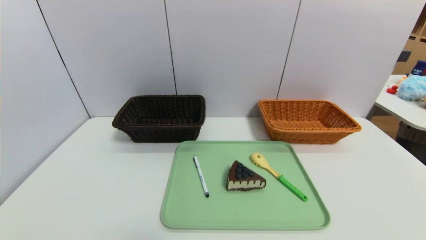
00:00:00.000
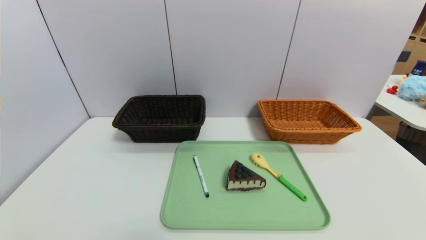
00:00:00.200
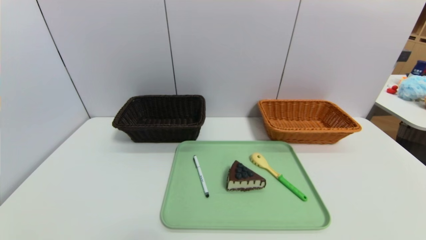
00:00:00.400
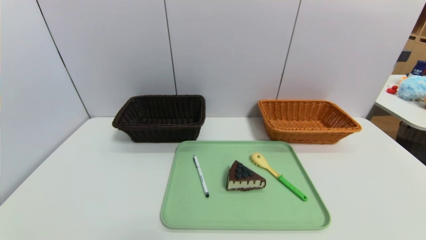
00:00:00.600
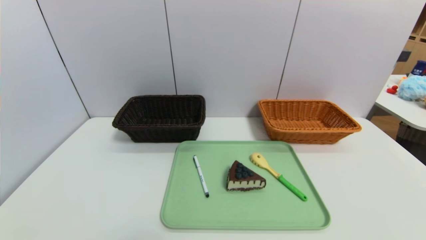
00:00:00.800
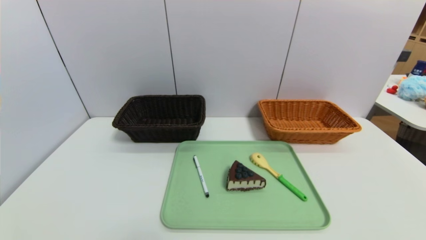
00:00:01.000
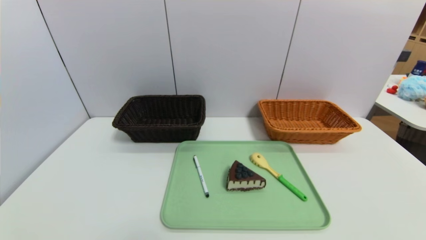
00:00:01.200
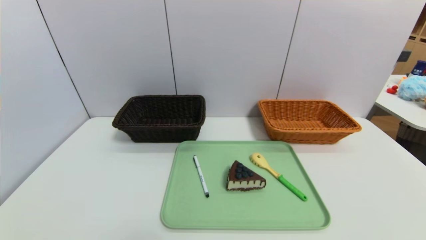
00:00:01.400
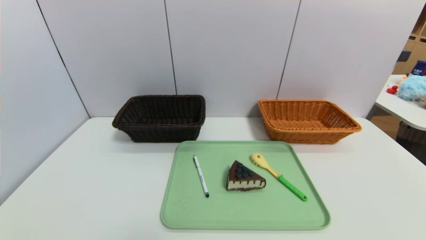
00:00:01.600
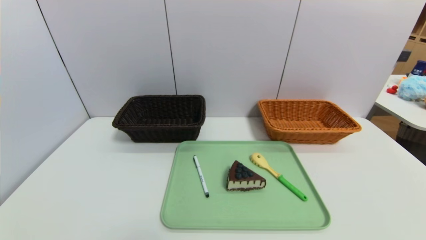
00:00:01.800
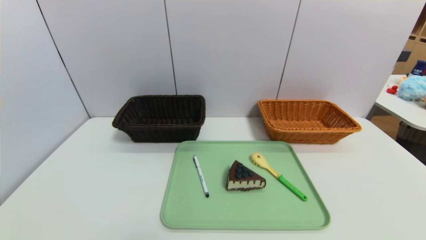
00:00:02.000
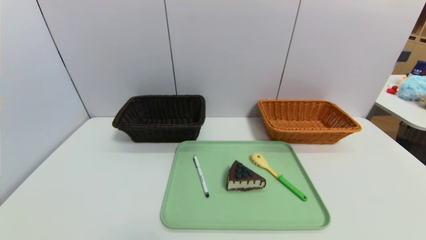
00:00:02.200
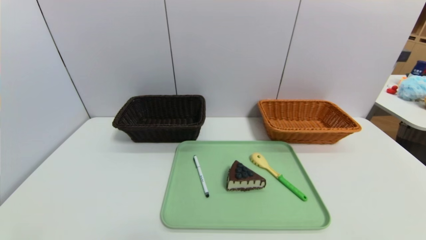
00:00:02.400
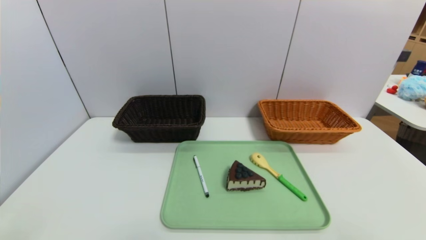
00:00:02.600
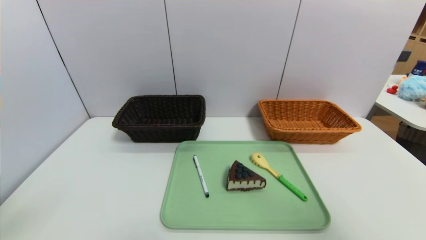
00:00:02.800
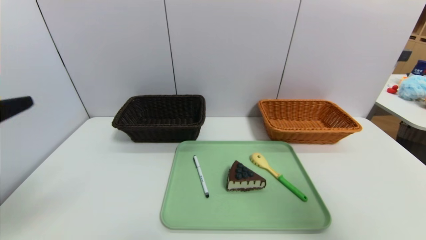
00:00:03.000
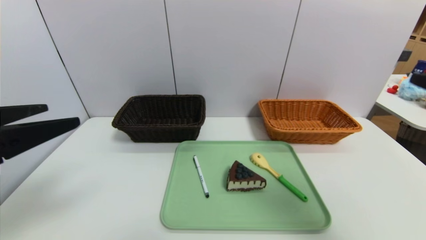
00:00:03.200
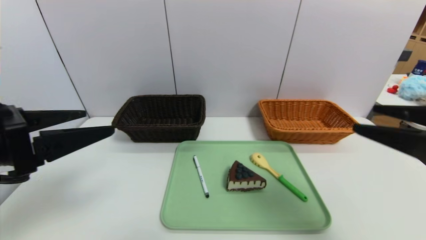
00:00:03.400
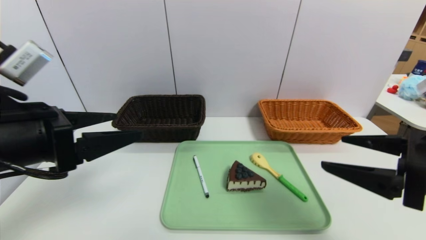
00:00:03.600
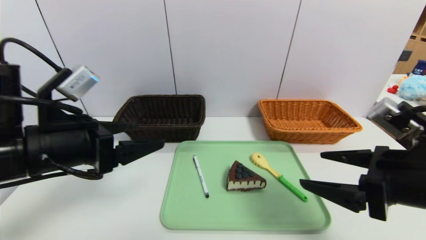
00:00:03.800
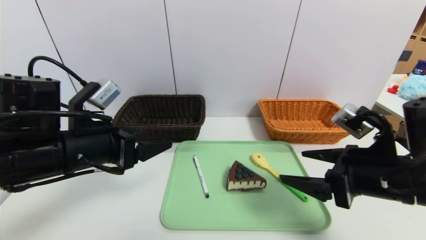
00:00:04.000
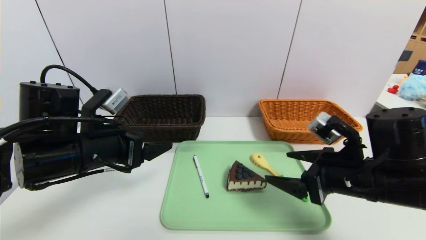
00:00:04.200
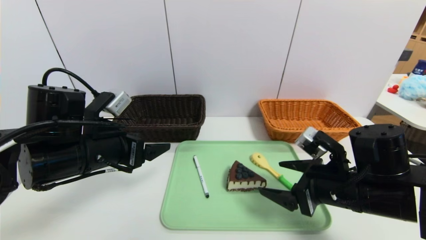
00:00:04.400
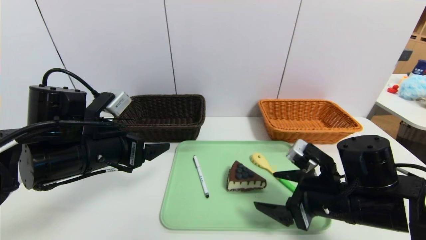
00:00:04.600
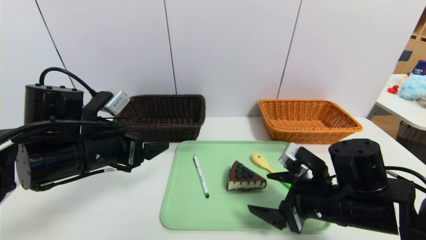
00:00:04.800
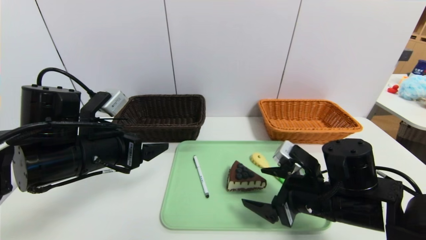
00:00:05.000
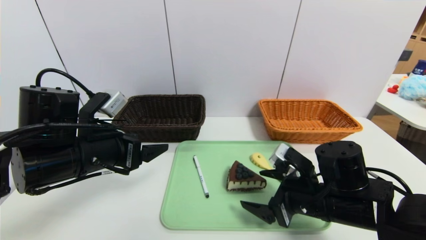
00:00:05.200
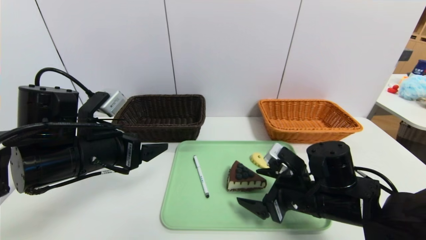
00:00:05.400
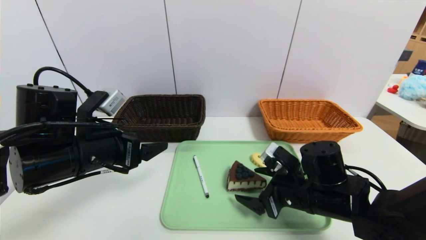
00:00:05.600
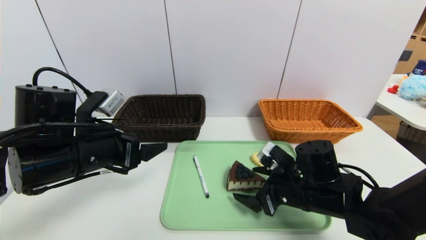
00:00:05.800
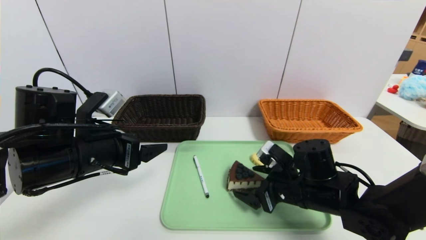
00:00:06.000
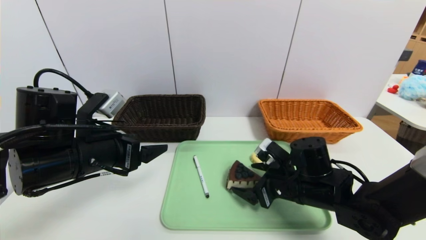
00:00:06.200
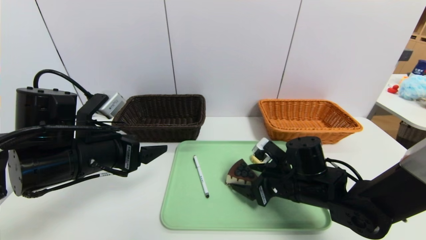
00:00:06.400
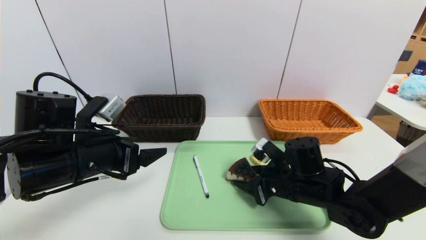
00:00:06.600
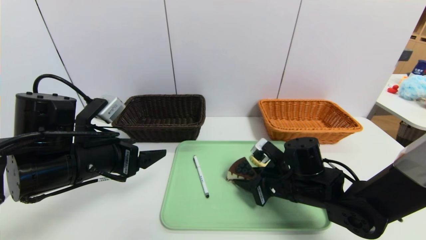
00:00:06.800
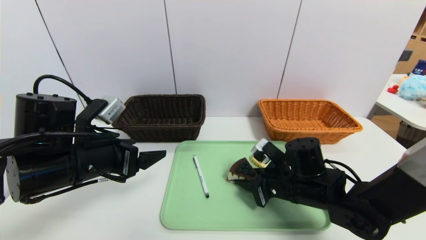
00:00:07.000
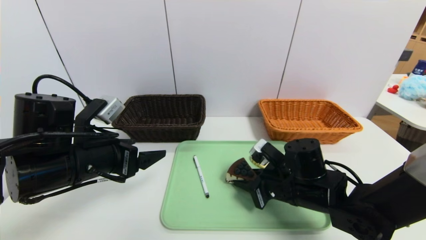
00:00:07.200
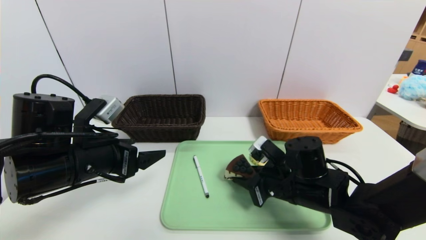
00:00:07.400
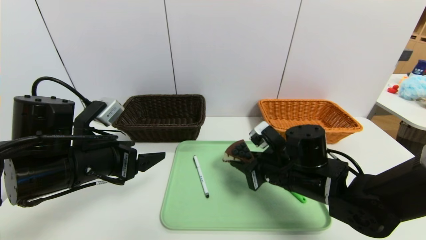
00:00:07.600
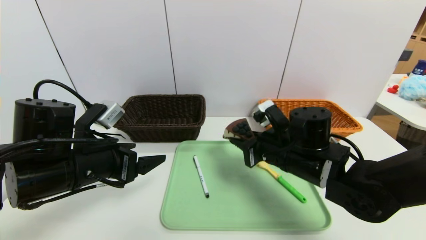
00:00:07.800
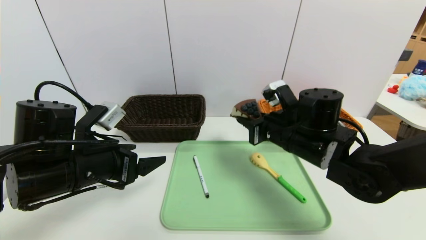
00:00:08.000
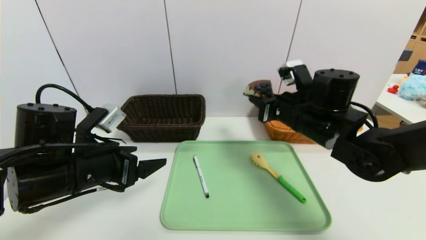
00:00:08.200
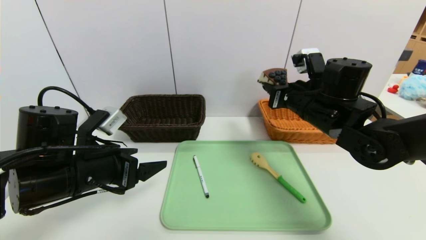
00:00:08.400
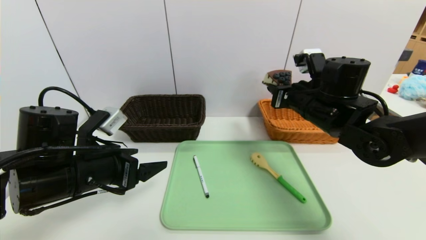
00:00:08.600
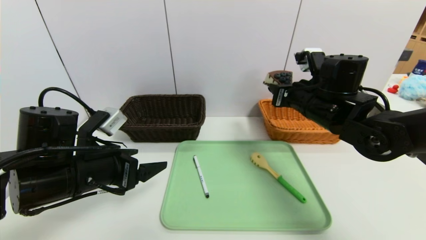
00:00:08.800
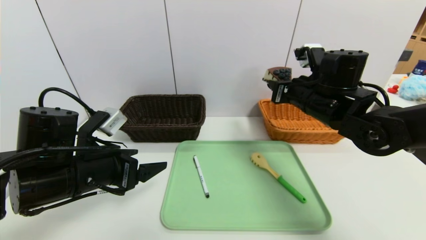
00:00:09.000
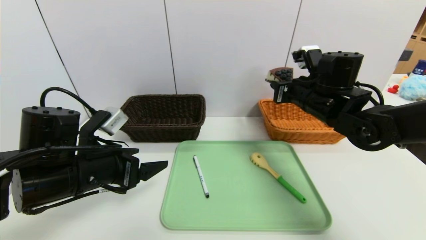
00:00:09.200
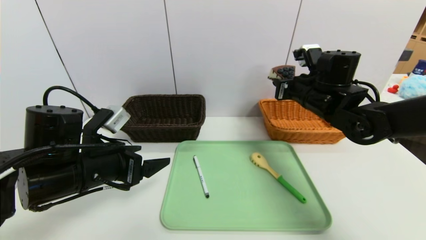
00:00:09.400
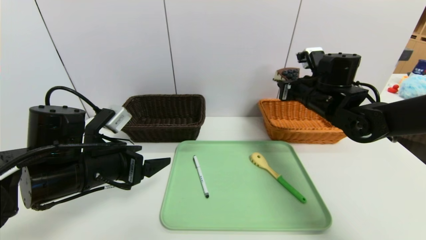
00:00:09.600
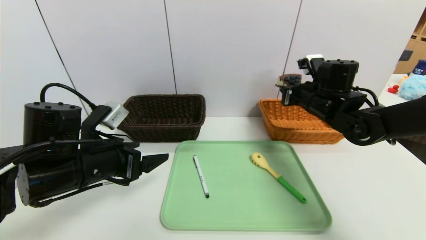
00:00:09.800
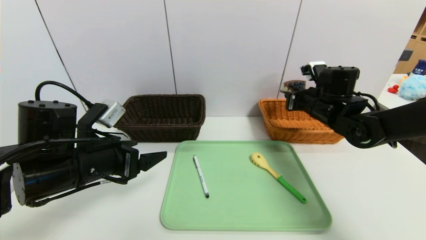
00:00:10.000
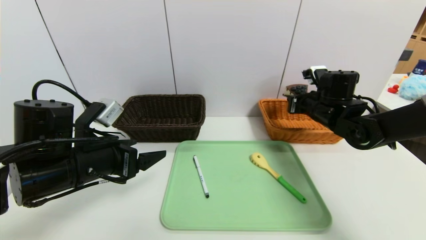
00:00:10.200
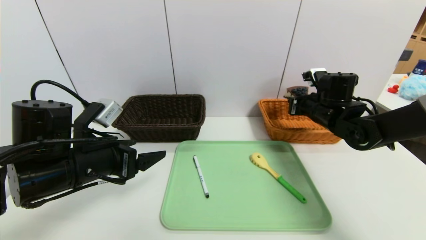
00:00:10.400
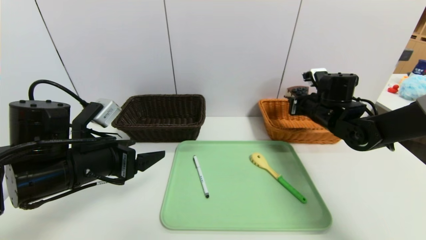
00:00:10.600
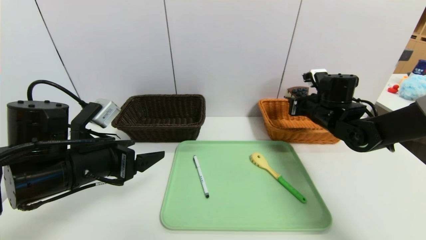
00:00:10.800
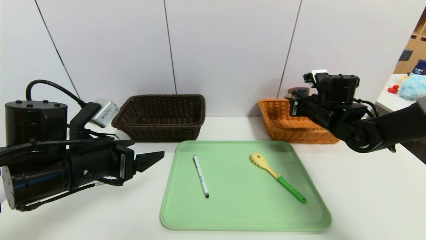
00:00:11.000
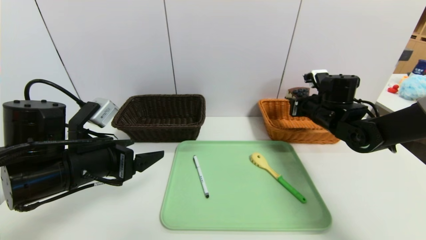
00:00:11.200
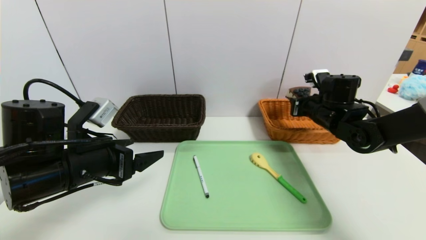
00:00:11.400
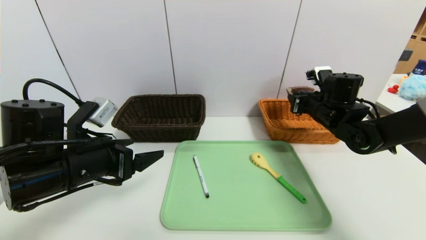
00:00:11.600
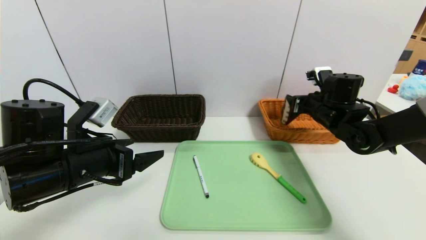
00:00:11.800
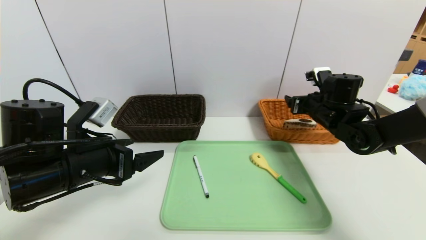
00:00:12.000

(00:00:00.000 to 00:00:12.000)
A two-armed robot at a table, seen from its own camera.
Task of the whole recording: place the food in the right basket with the right gripper, and place the non food items in the left basket with the left gripper.
00:00:00.000 - 00:00:01.600: Both grippers stay about where they are.
00:00:01.600 - 00:00:03.000: The left gripper moves upward and forward, approximately 25 cm; the right gripper shifts approximately 25 cm upward.
00:00:03.000 - 00:00:04.400: The left gripper travels forward, downward and to the right by approximately 20 cm. The right gripper goes approximately 25 cm downward, forward and to the left.
00:00:04.400 - 00:00:06.000: The right gripper goes approximately 5 cm downward.
00:00:06.000 - 00:00:07.600: The right gripper closes its fingers.
00:00:07.600 - 00:00:09.000: The right gripper heads upward, forward and to the right, covering roughly 15 cm.
00:00:09.000 - 00:00:10.400: The right gripper travels to the right, downward and forward by approximately 10 cm.
00:00:10.400 - 00:00:12.000: The right gripper opens up.

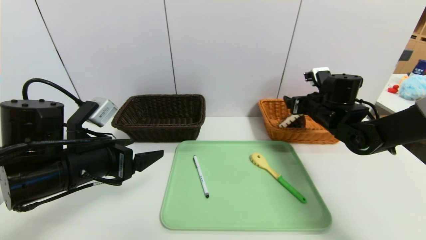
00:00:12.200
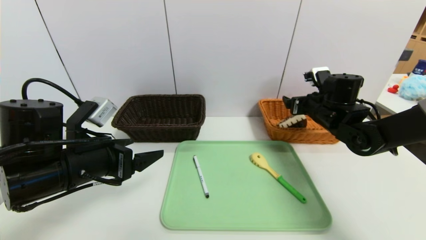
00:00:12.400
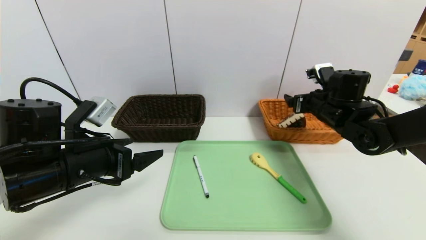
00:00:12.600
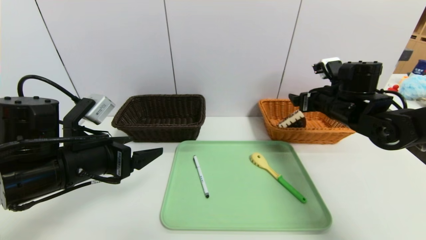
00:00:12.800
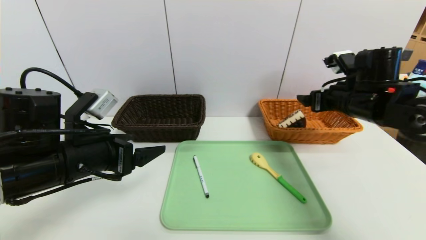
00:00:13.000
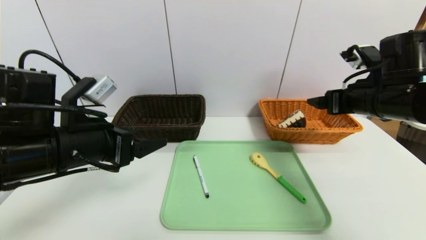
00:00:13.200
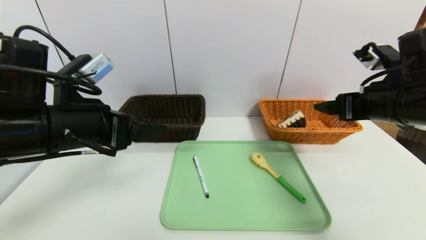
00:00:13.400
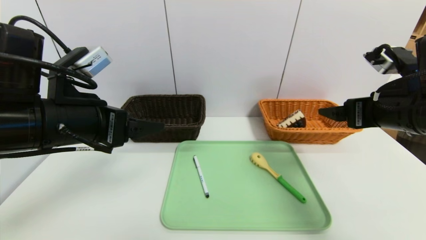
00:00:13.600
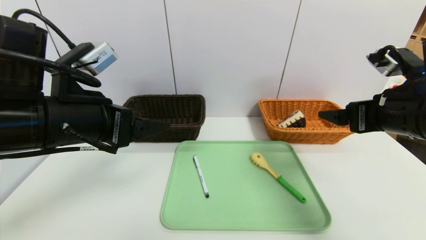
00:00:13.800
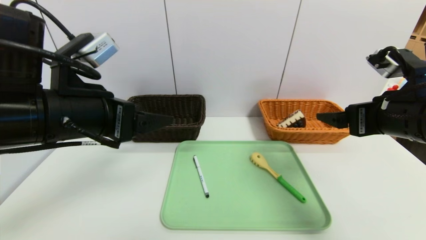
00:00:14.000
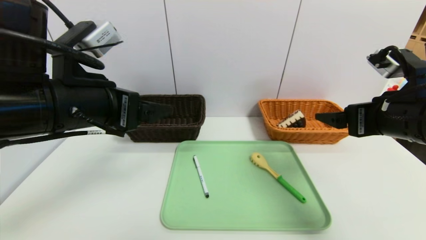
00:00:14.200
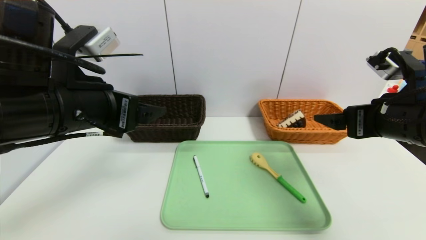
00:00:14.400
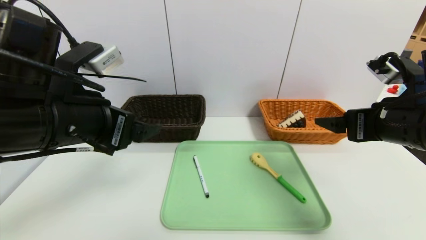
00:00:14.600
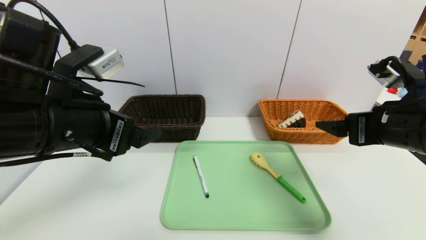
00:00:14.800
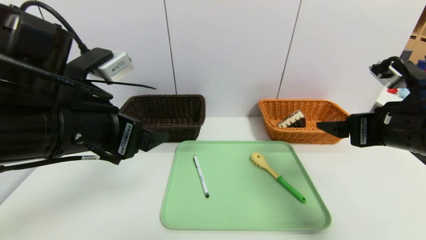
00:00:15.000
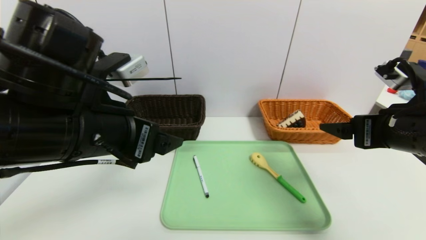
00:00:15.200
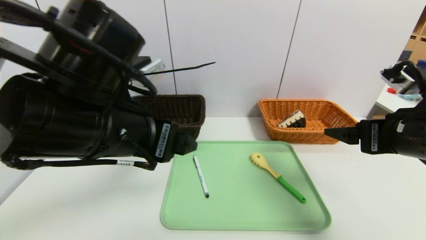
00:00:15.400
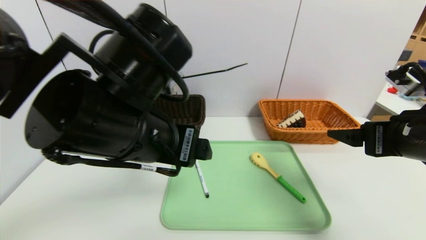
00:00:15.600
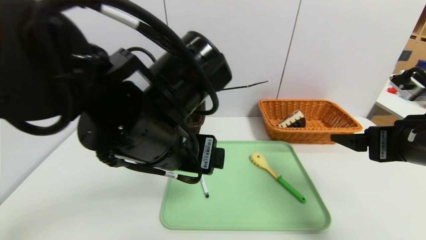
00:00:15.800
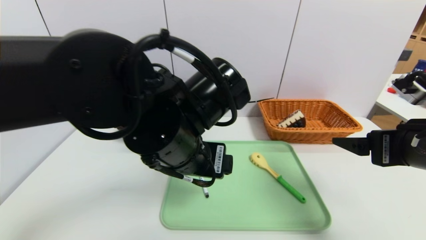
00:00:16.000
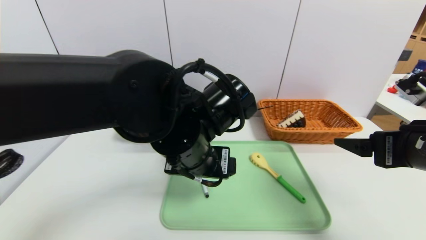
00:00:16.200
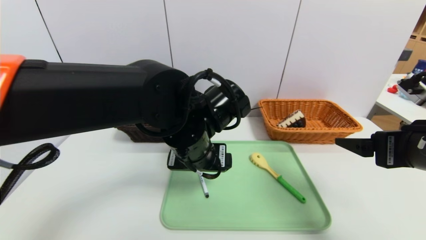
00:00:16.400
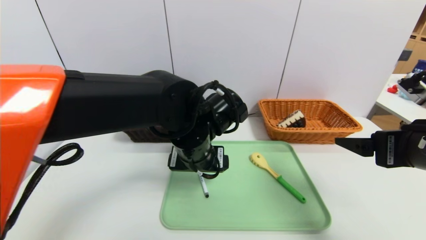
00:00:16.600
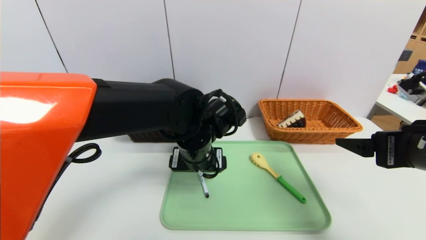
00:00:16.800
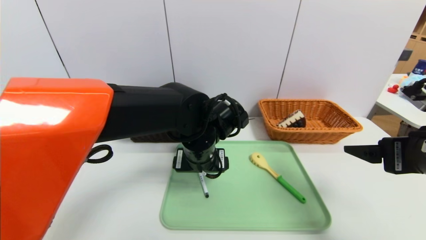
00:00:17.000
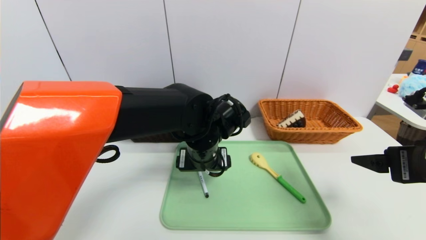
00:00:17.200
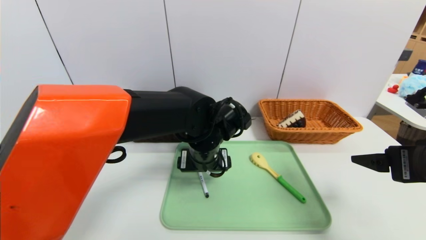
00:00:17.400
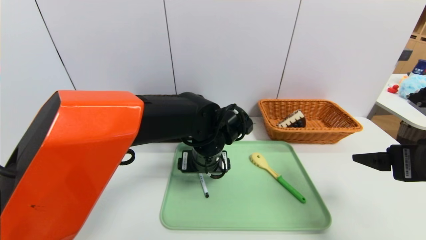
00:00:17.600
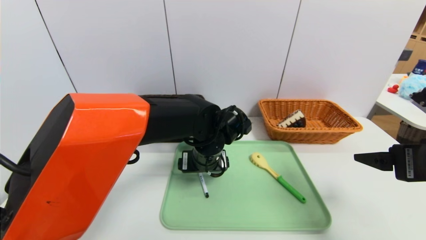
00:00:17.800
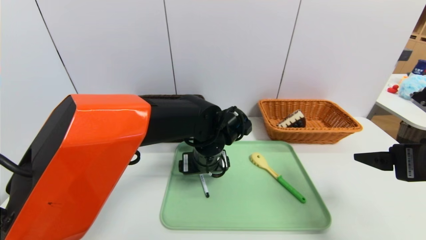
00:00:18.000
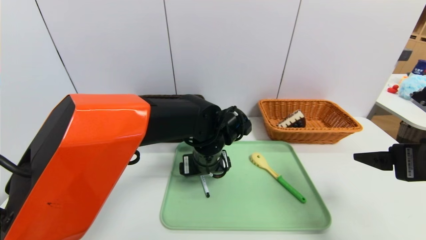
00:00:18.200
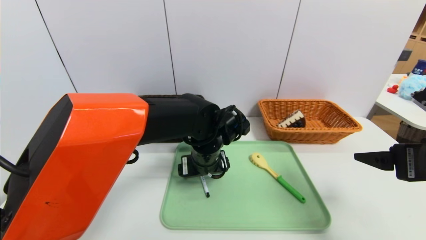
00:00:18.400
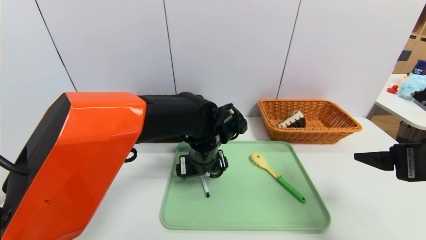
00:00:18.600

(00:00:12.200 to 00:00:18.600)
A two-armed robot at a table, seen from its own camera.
Task of the whole recording: place the food in the right basket with the right gripper, and place the non food items in the left basket with the left gripper.
00:00:12.200 - 00:00:13.800: The left gripper shifts roughly 10 cm upward. The right gripper is displaced backward and upward by some 20 cm.
00:00:13.800 - 00:00:15.400: The left gripper moves to the right, approximately 5 cm.
00:00:15.400 - 00:00:17.000: The left gripper travels downward, forward and to the right by some 20 cm.
00:00:17.000 - 00:00:18.600: The grippers move only a little.
